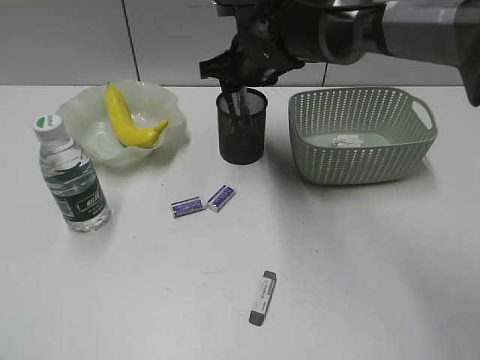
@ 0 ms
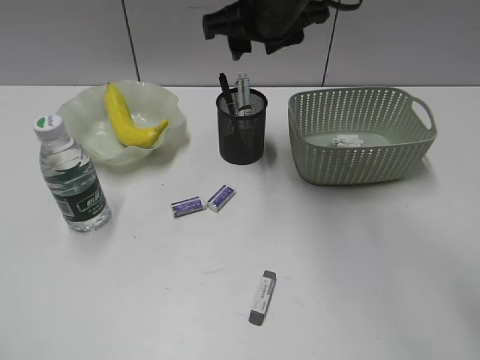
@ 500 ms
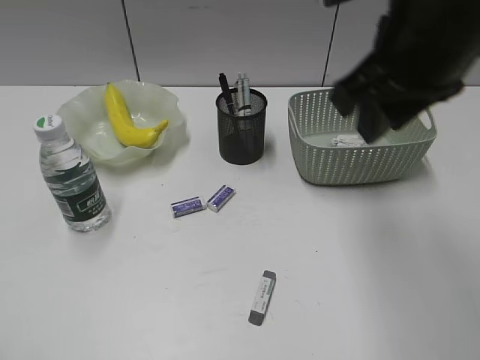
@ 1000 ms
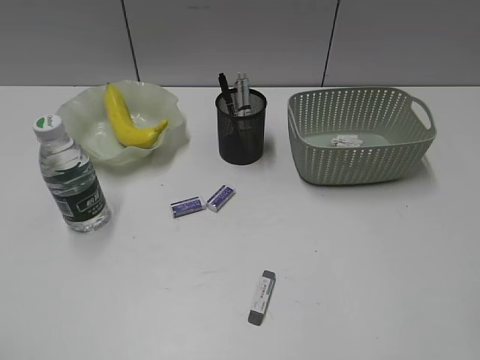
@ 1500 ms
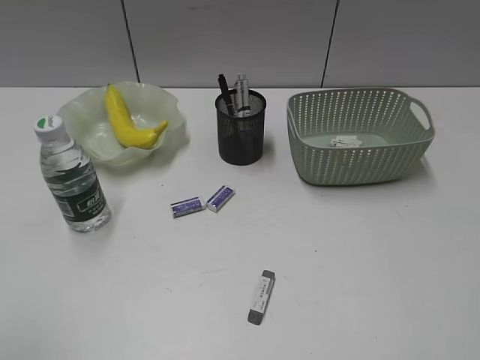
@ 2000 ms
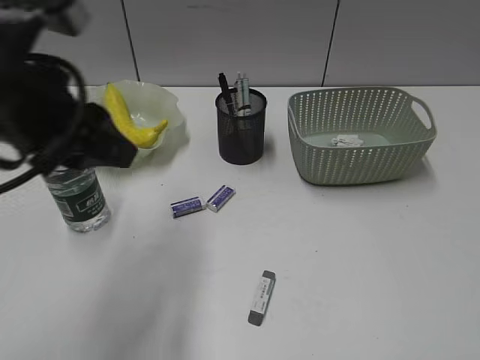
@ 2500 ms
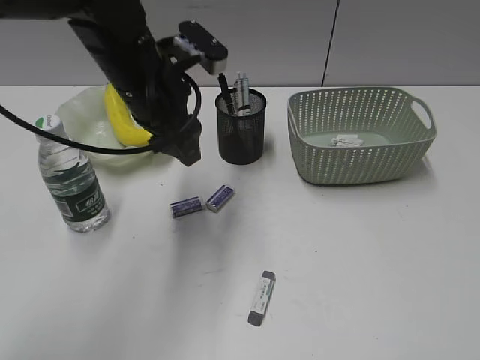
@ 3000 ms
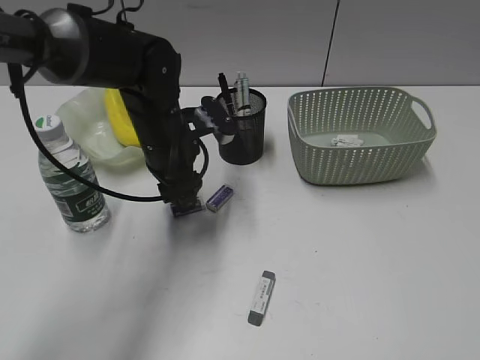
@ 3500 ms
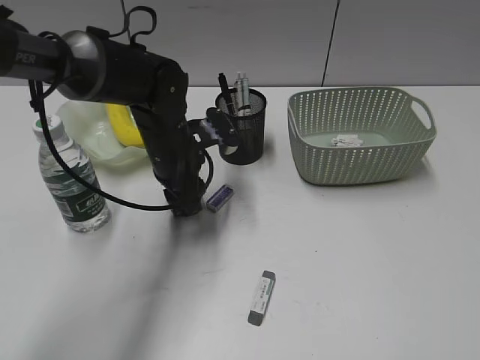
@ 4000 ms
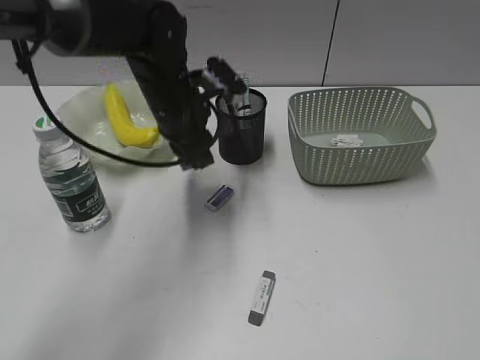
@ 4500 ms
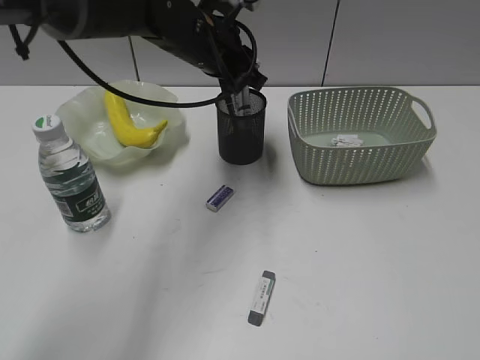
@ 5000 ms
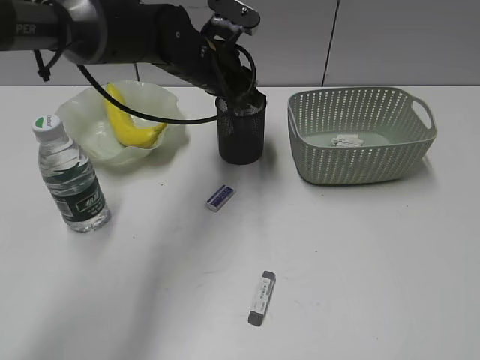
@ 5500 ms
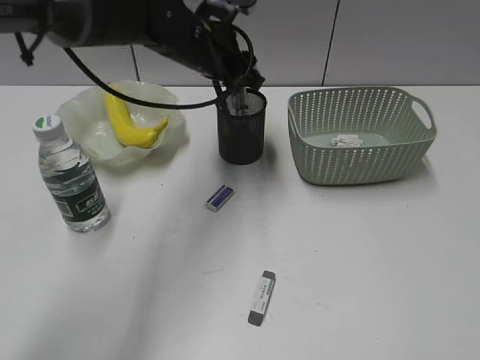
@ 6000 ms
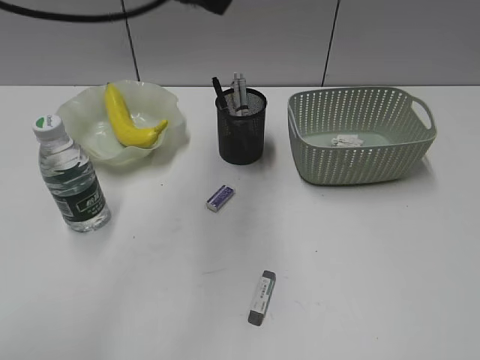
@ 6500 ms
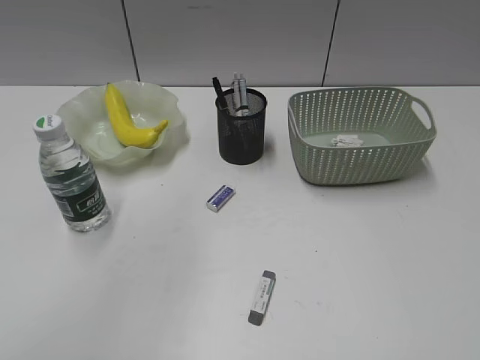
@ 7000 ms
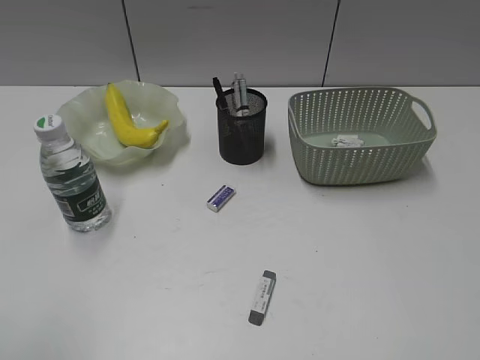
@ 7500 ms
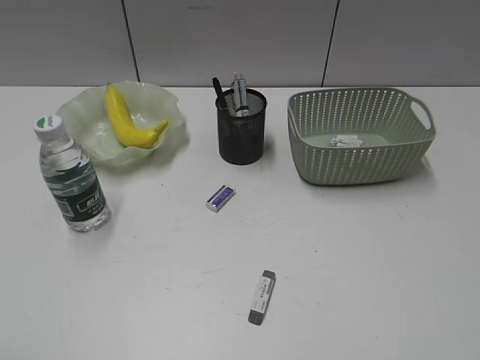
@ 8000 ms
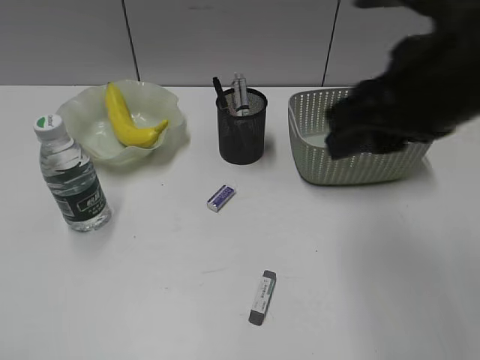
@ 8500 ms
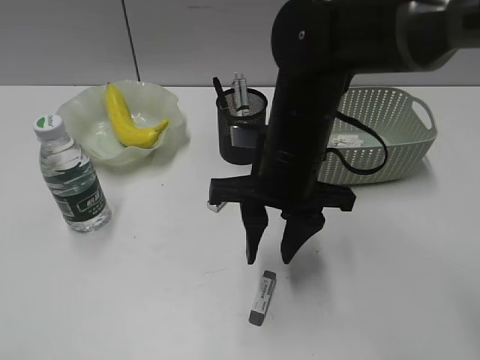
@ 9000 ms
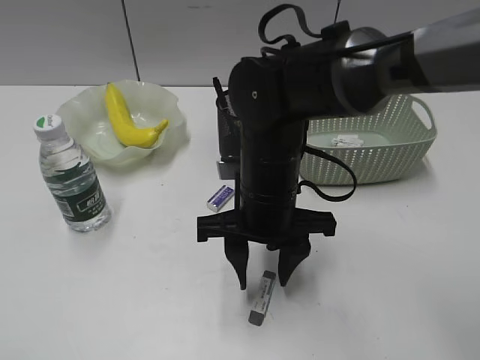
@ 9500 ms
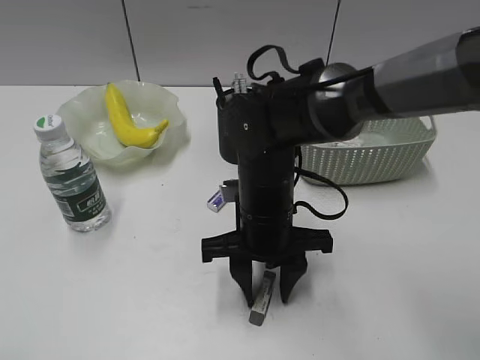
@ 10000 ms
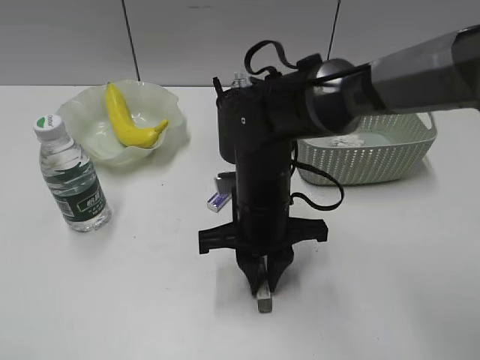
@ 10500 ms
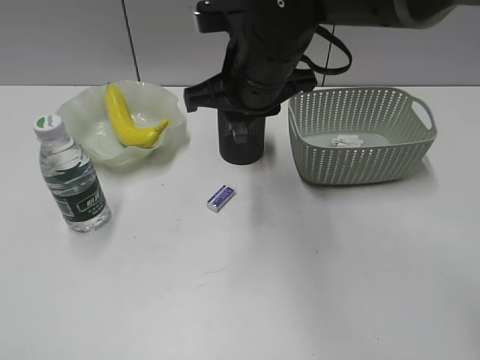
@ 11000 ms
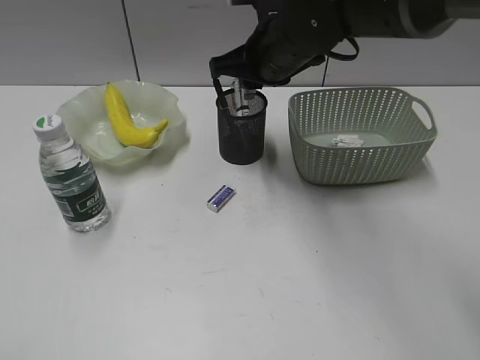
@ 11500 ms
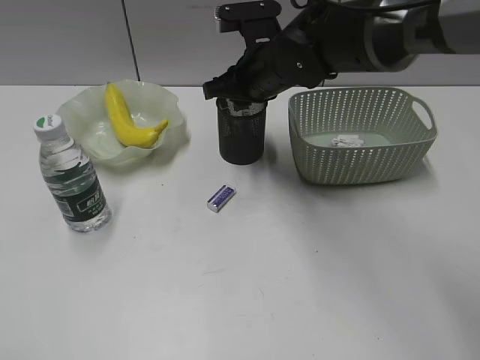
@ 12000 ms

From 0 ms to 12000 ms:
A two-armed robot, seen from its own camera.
Step, from 500 ms to 4000 ms: Grasp the eraser with left gripper.
Step, from 4500 ms to 5500 ms: Place the eraser in pen holder with left gripper.
Step, from 6000 ms to 10000 ms: Grasp the eraser with right gripper.
From 0 ms to 2000 ms: The left gripper shifts by about 5 cm. The right gripper travels backward and to the right by approximately 50 cm.
From 2000 ms to 4000 ms: The left gripper heads forward, to the right and downward, covering approximately 40 cm.
From 4000 ms to 6000 ms: The left gripper heads upward and forward, covering roughly 10 cm.
From 6000 ms to 8000 ms: The left gripper is displaced backward and to the left by about 50 cm. The right gripper shifts by some 5 cm.
From 8000 ms to 10000 ms: The right gripper heads to the left, forward and downward, covering roughly 40 cm.
From 10000 ms to 12000 ms: The right gripper is displaced forward and upward by about 15 cm, and closes its fingers.

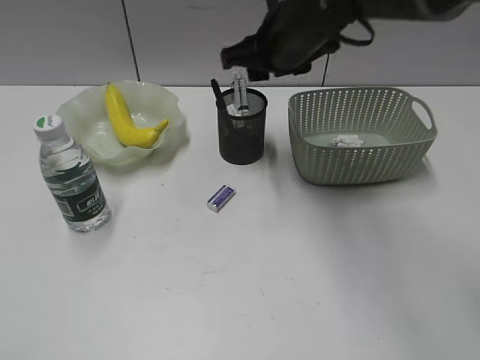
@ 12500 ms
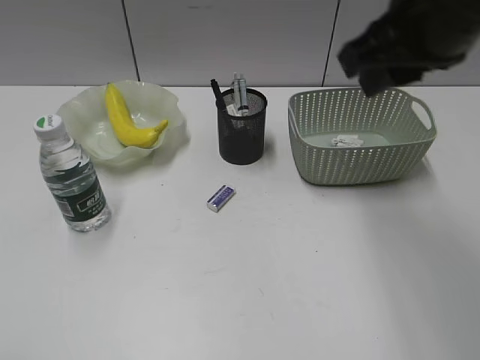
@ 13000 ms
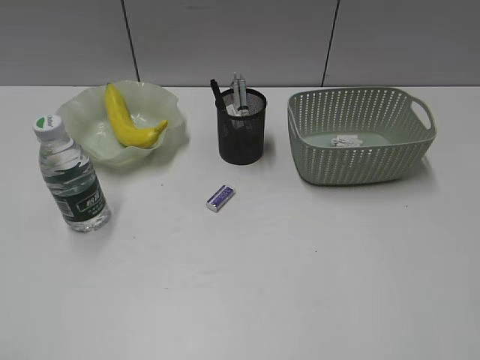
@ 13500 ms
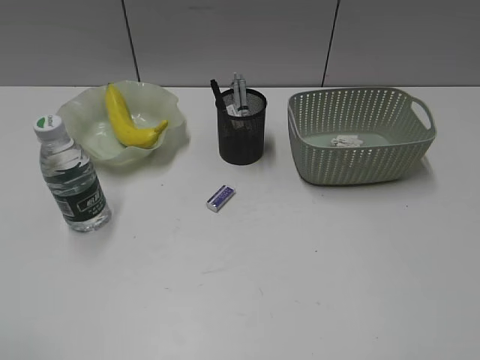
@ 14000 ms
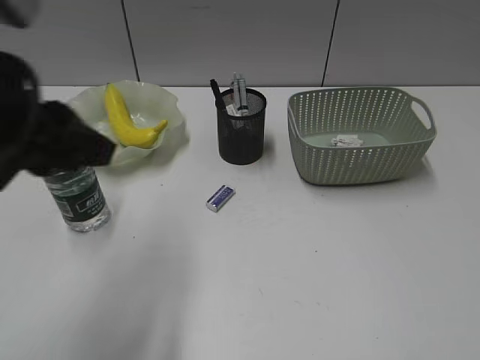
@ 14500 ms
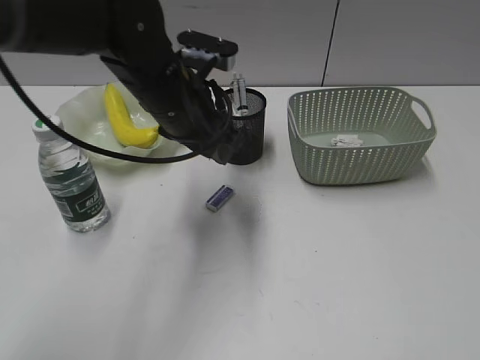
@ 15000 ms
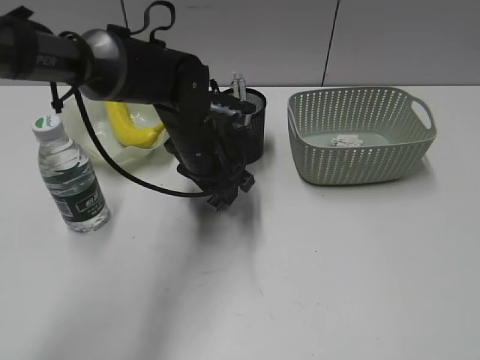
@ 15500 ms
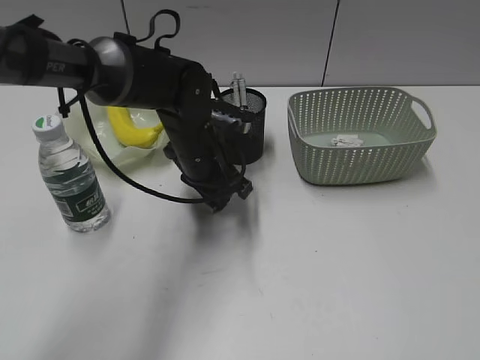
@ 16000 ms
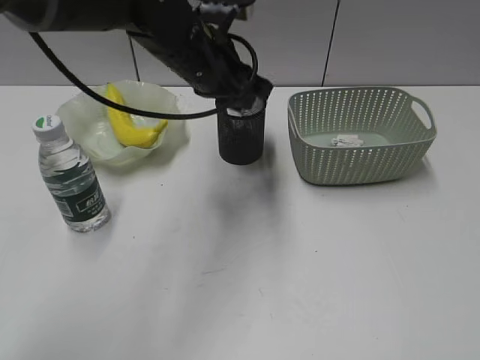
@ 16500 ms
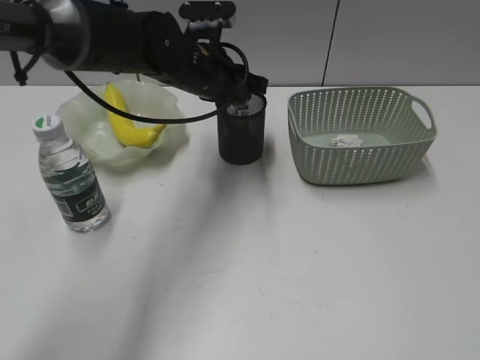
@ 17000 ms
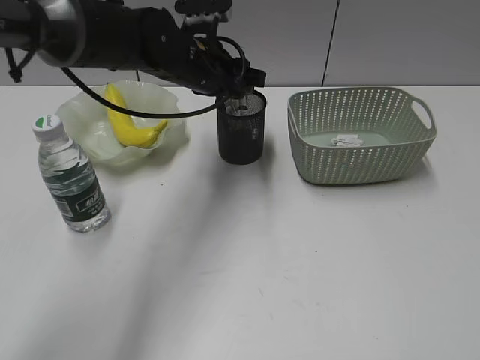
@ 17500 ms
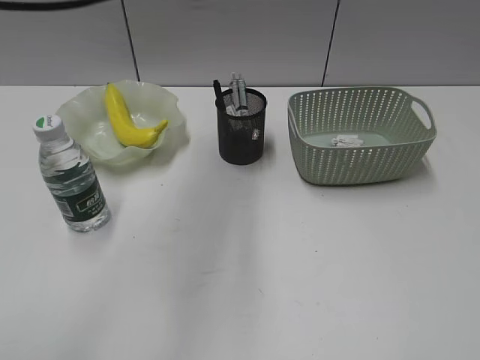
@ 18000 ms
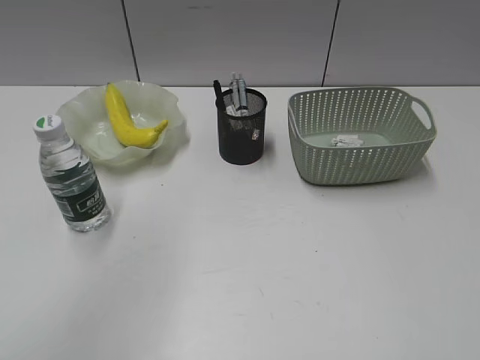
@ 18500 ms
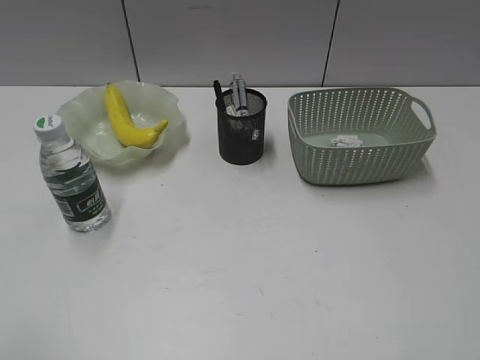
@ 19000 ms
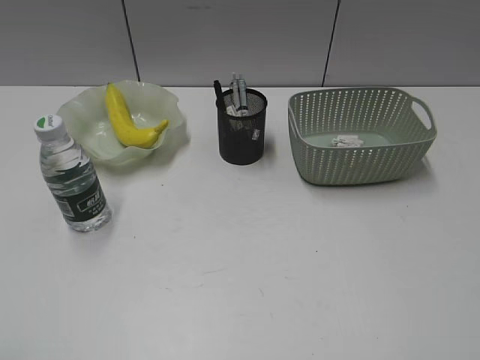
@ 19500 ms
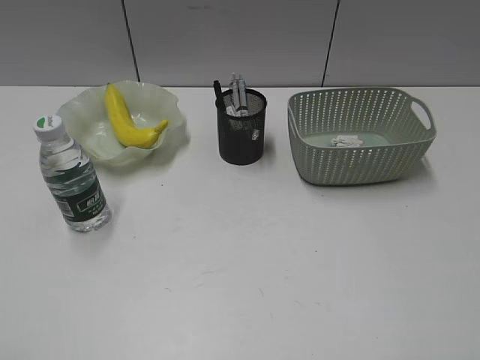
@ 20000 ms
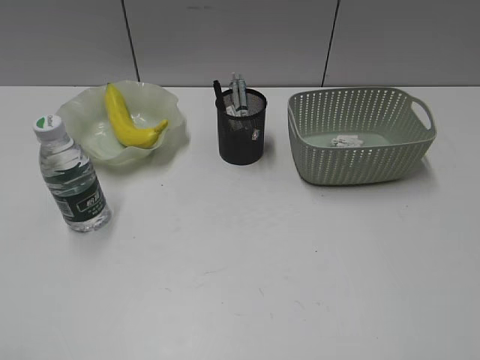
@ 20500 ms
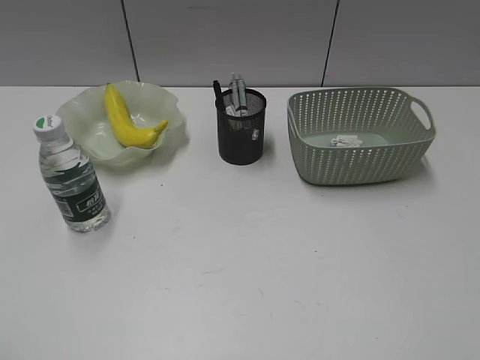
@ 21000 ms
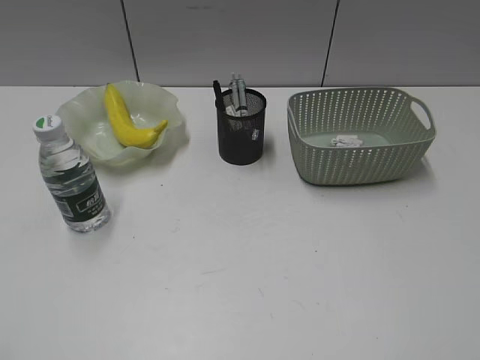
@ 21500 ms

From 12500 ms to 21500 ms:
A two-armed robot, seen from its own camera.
Step, from 12500 ms to 15500 ms: Grasp the eraser with left gripper.
Step, from 16000 ms to 17000 ms: Place the eraser in pen holder with left gripper.
From 12500 ms to 14500 ms: The left gripper moves forward and to the right, roughly 25 cm. The right gripper goes some 50 cm backward and to the right.
From 14500 ms to 17000 ms: The left gripper moves forward, to the right and downward, roughly 30 cm.
From 17000 ms to 19500 ms: The left gripper travels backward and to the left by some 50 cm.

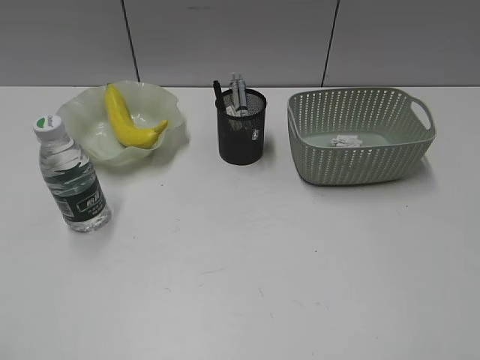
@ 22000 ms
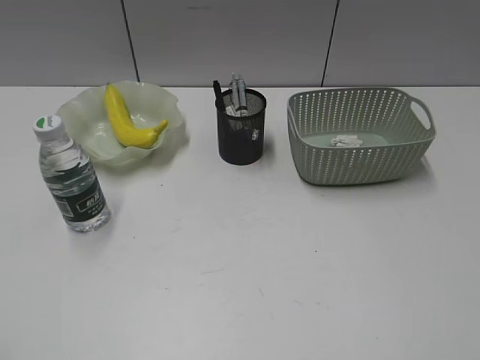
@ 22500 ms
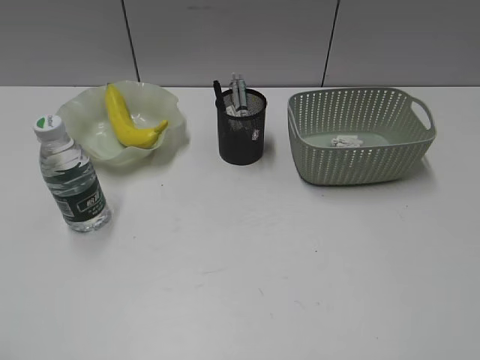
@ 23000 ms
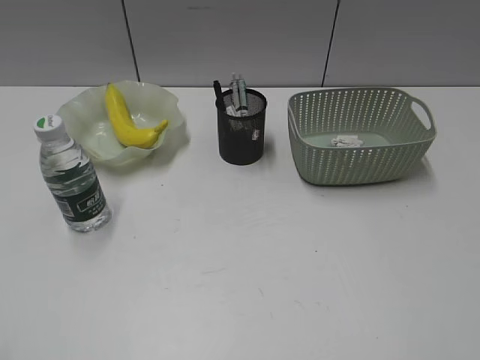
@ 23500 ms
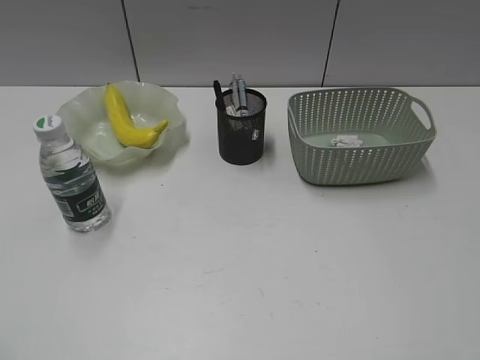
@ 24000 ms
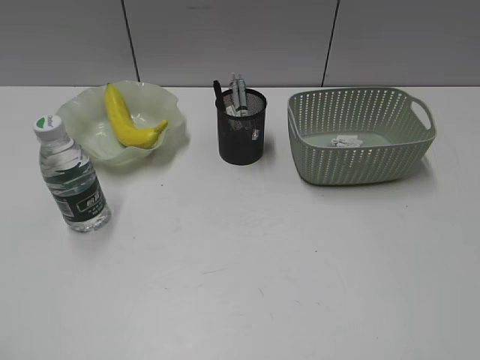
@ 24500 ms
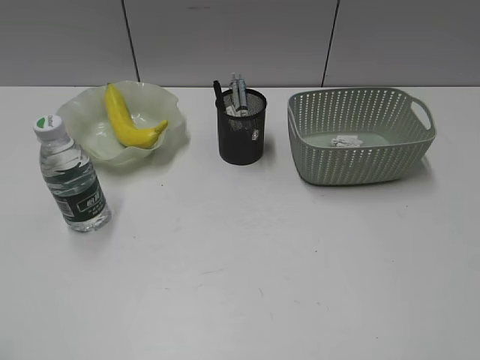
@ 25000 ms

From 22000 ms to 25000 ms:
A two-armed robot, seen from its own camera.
From 22000 ms to 25000 ms: Both grippers stay about where they are.
